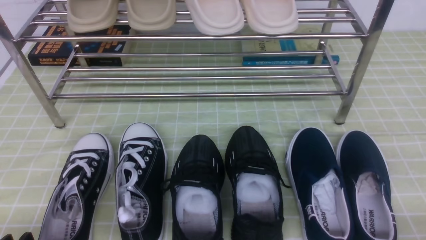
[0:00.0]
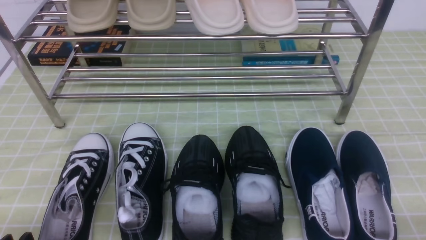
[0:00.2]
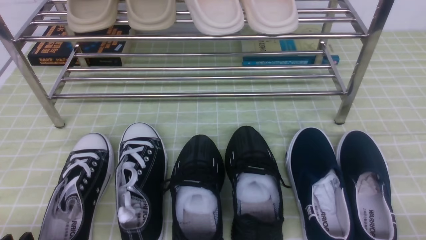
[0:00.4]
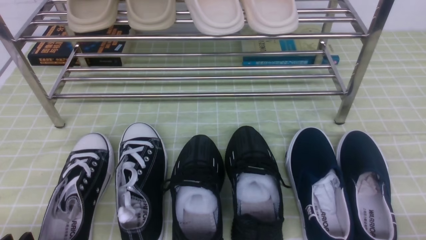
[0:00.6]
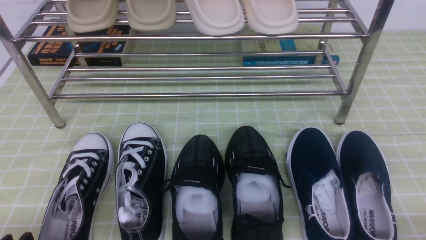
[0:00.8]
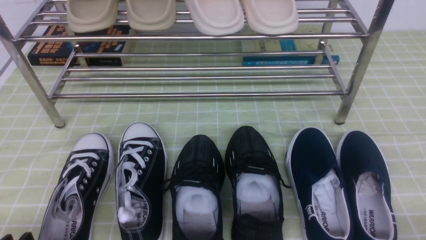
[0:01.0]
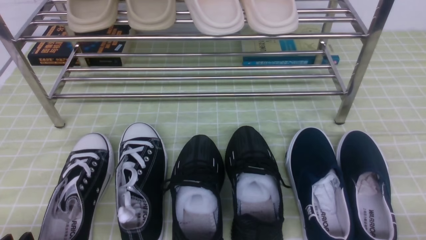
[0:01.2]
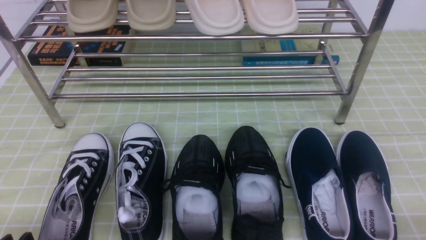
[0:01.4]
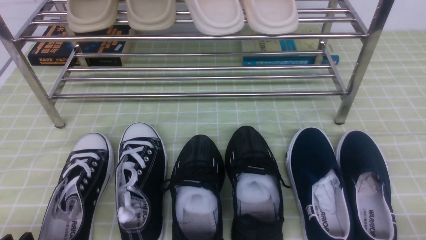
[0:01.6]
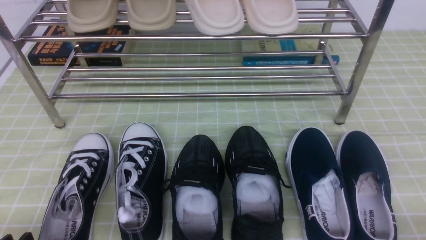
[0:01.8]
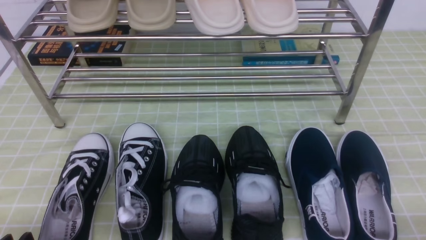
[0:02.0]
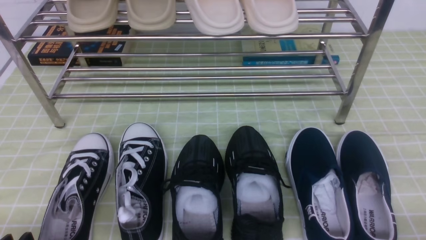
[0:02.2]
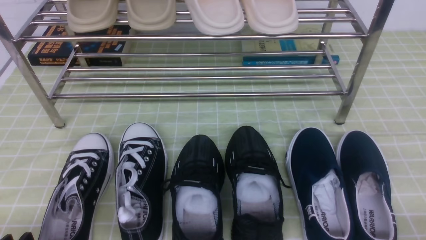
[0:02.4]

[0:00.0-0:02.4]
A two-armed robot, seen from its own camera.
0:00.0 to 0:02.4: Neither gripper changes place.
